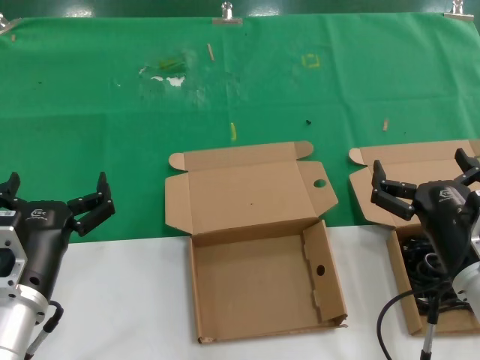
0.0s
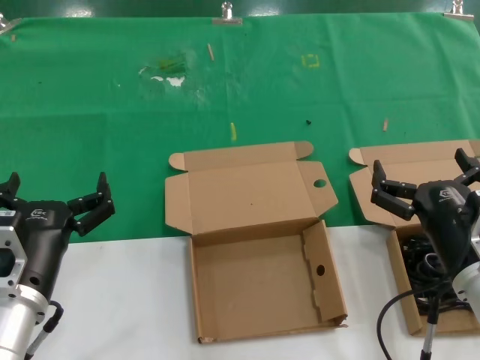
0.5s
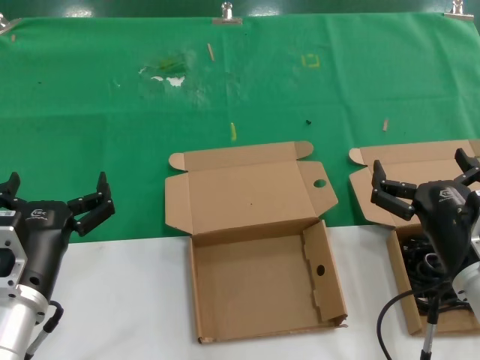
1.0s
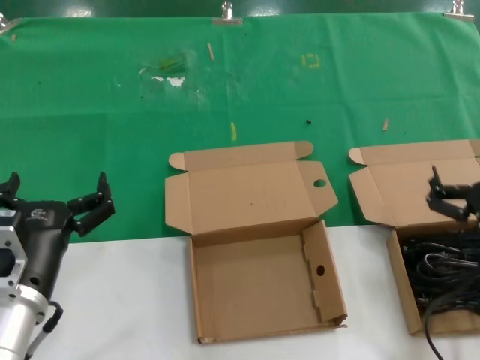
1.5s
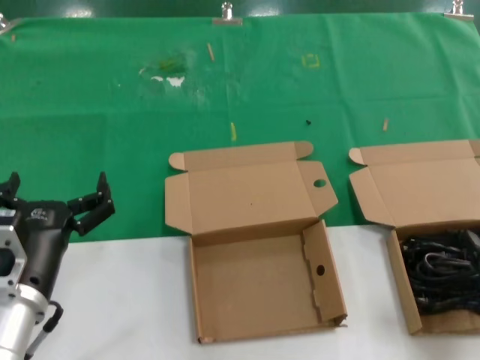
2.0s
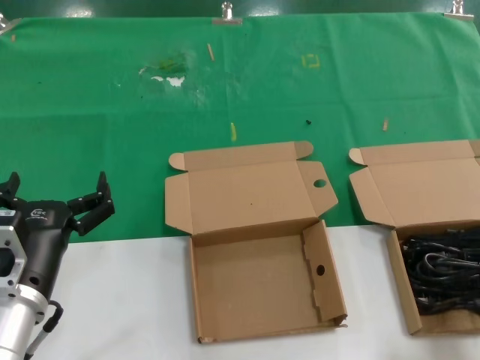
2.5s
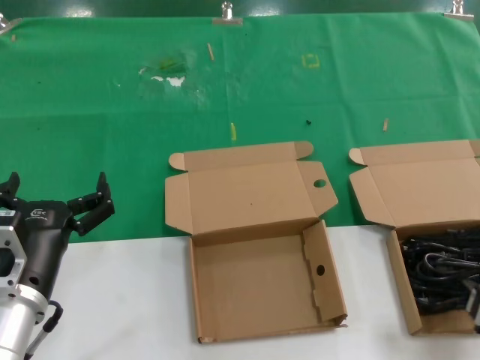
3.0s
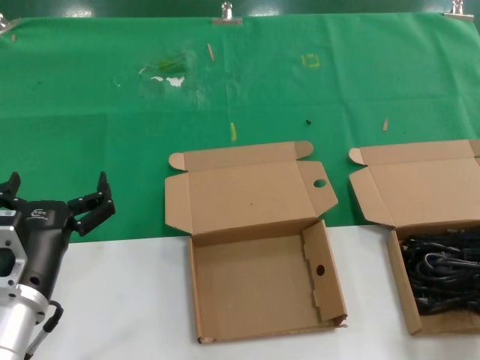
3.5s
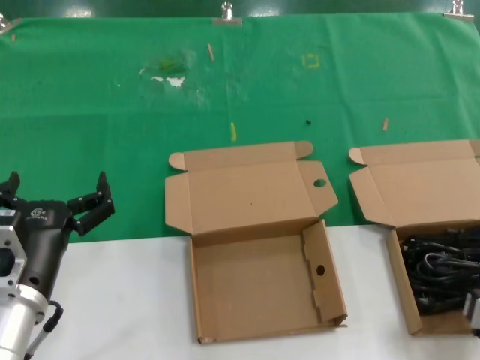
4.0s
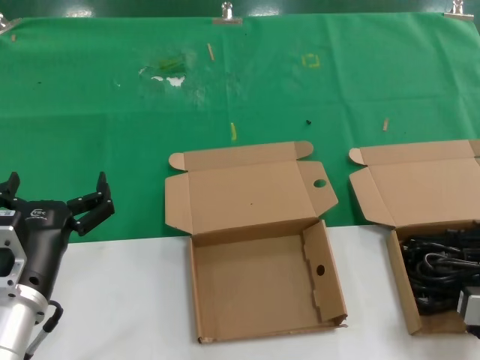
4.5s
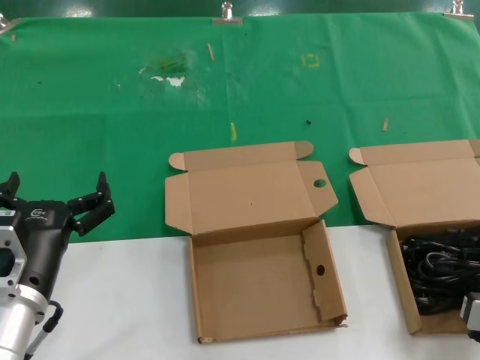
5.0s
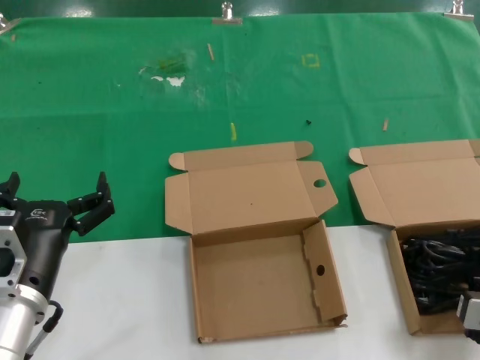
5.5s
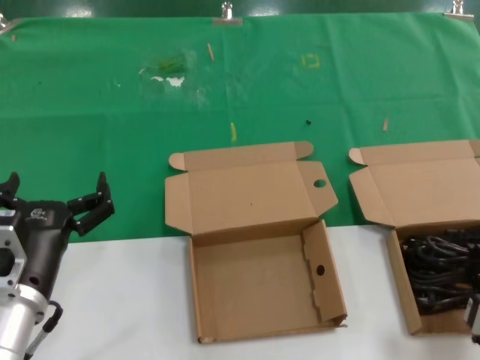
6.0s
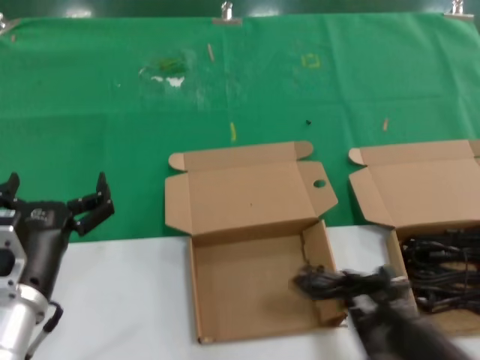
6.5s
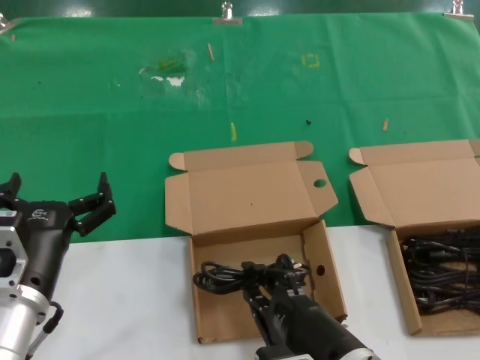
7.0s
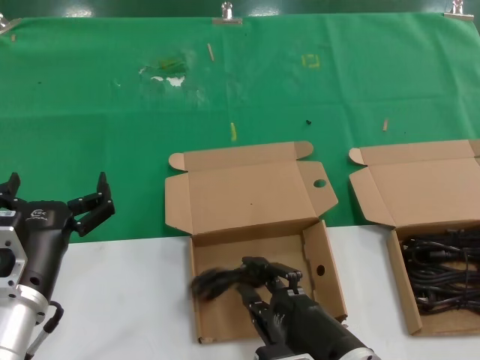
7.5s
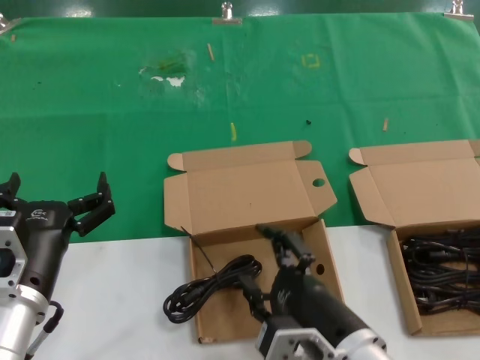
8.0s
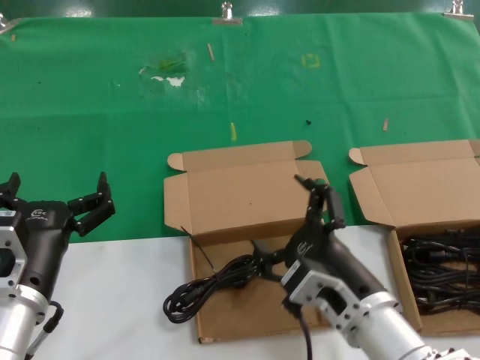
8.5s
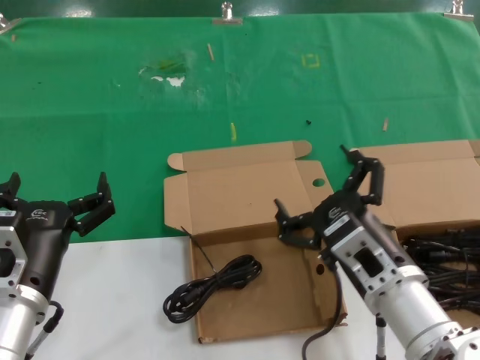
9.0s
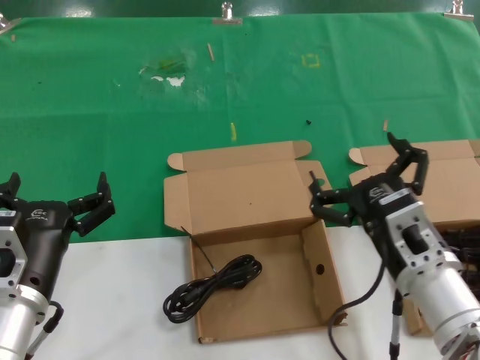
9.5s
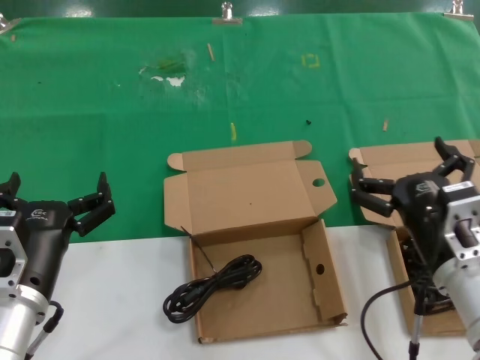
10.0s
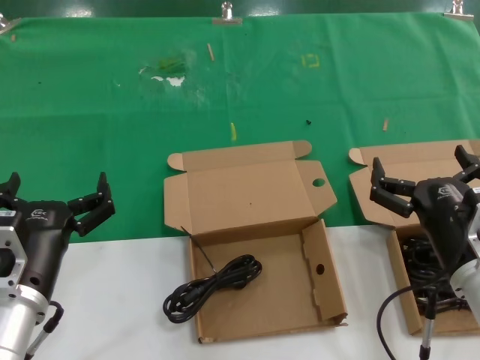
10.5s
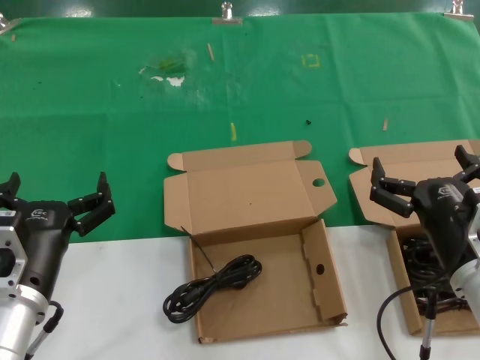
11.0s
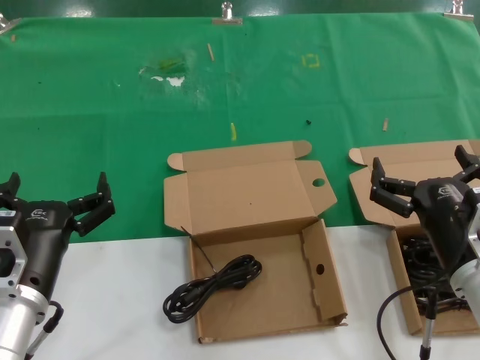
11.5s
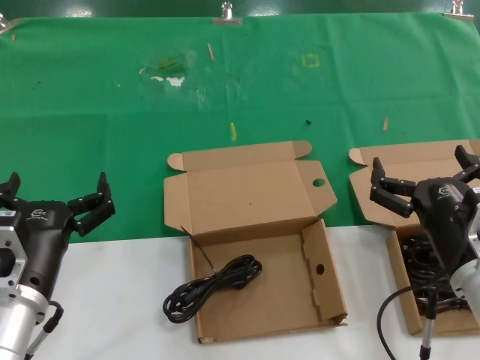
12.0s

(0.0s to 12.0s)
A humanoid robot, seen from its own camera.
Task of the whole recording: take the parts from the box containing them and put them into an empty box.
Step, 0.0s - 6.0s: Grasp the data cable.
Step, 6.5s - 8.5s: Place the data cable in the another box.
0.0s - 2.0s: The right hand is displaced to the right and backward by roughly 10 cm.
6.0s - 8.0s: The right hand heads to the left, covering roughly 20 cm.
8.0s - 10.0s: The right hand is displaced to the right and forward by roughly 15 cm.
10.0s - 12.0s: There are only small adjustments of the hands.

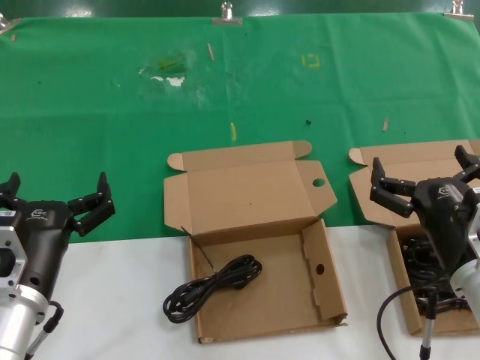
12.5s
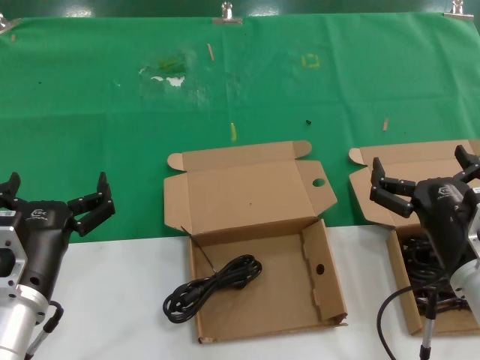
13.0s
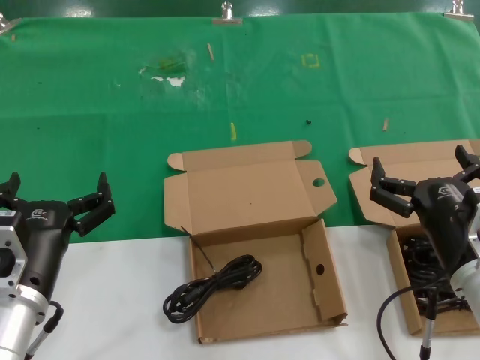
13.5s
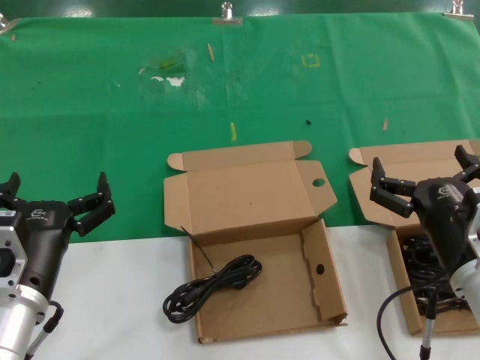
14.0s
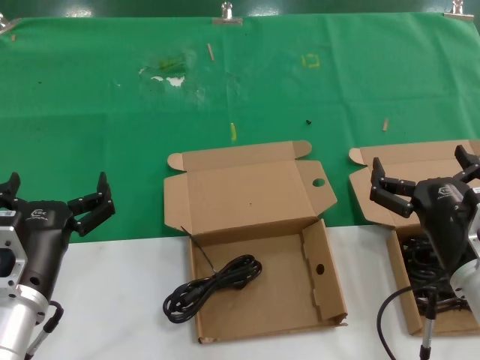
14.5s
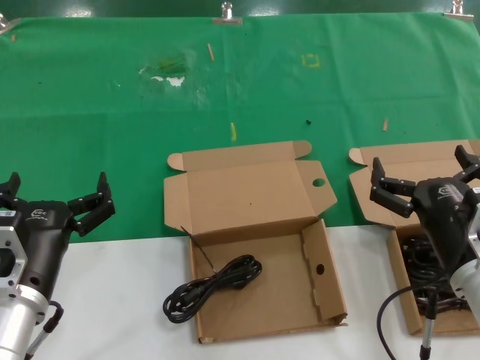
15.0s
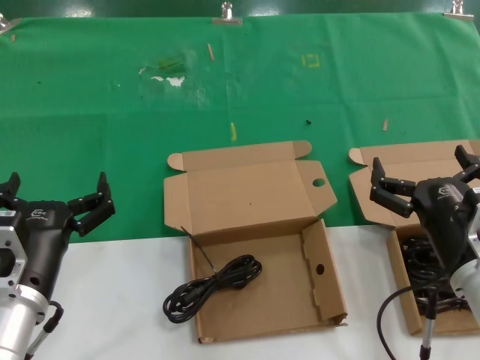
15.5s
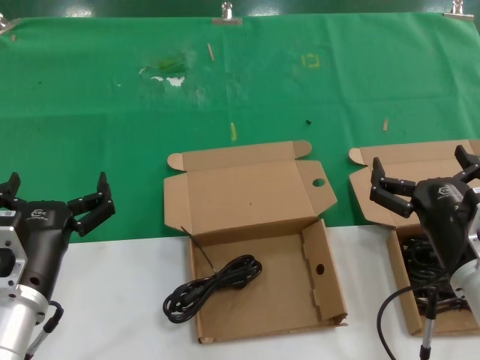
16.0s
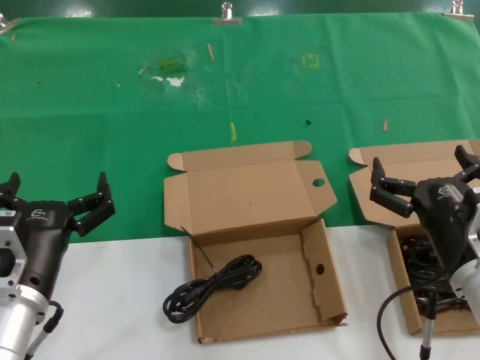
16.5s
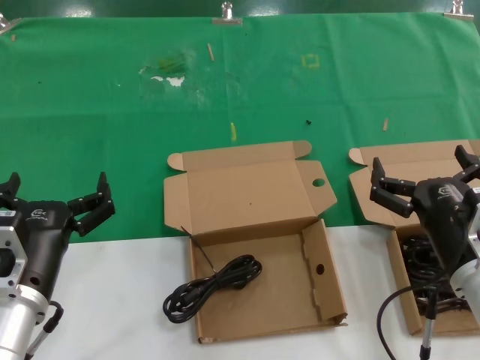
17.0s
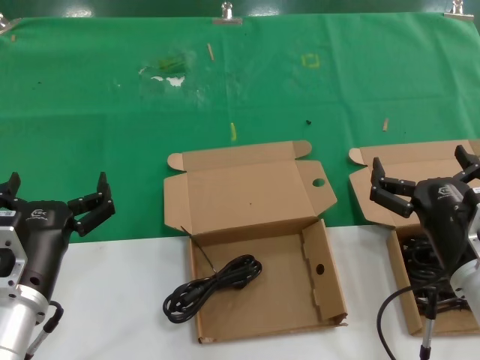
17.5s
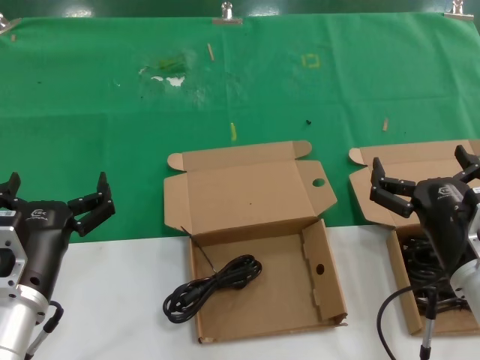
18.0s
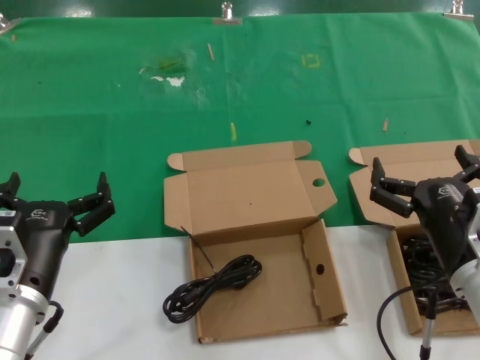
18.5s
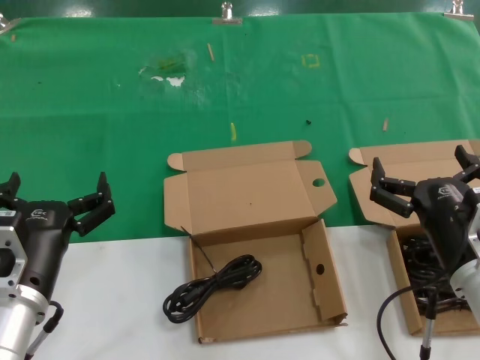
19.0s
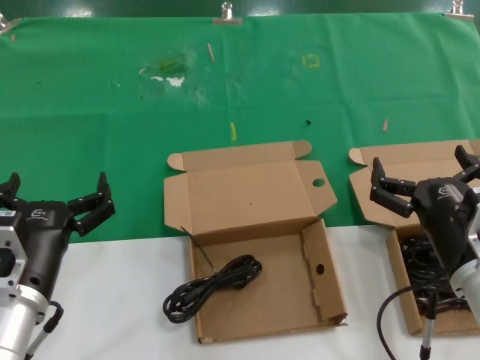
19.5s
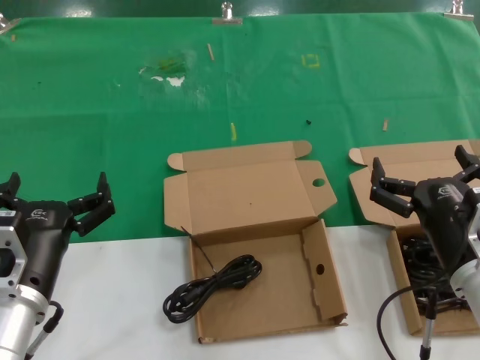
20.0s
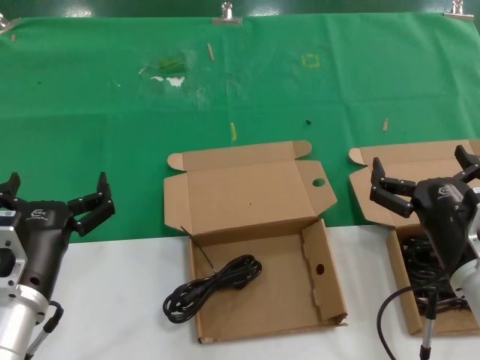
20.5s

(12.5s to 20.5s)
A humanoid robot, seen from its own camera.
Task of the whole recording: take the parts from the box containing them and put them into an empty box.
12.5s - 20.5s: Both hands stay put.

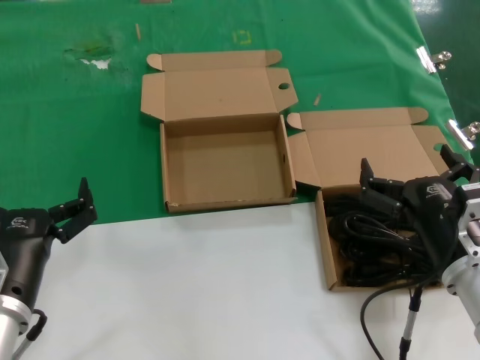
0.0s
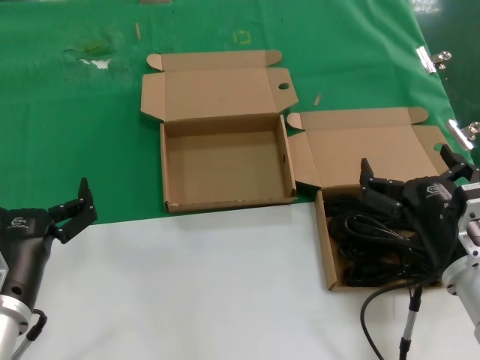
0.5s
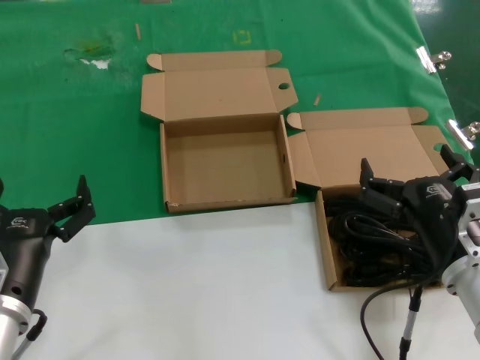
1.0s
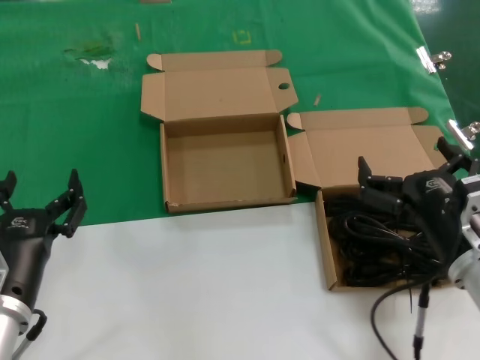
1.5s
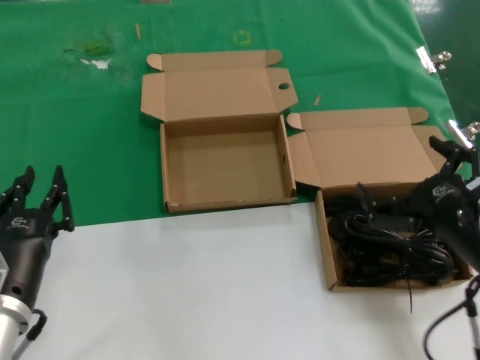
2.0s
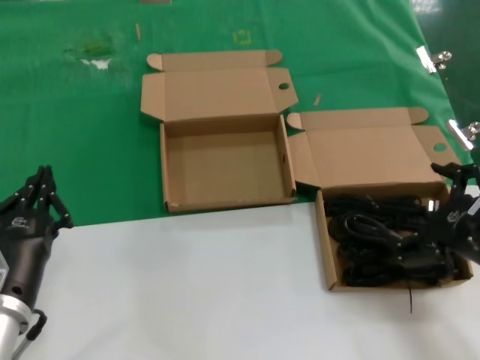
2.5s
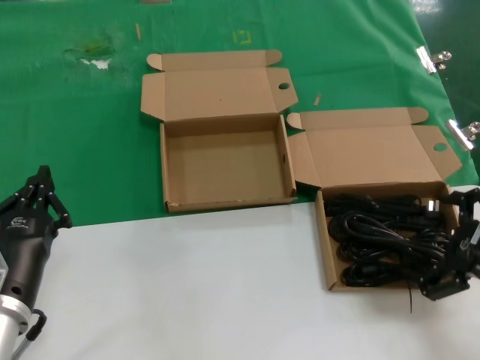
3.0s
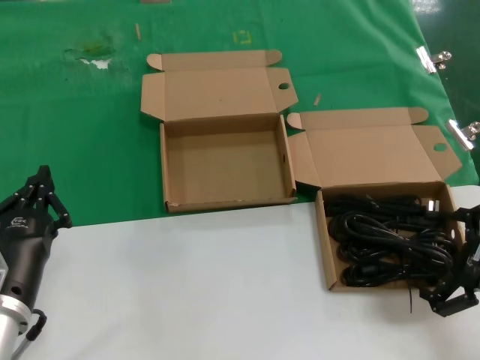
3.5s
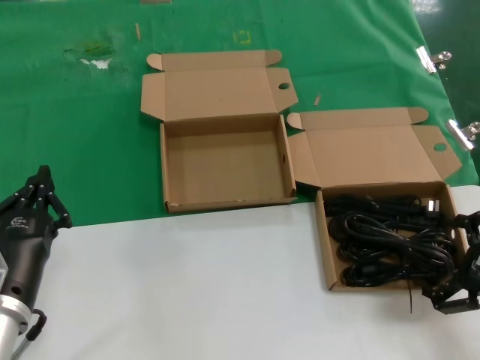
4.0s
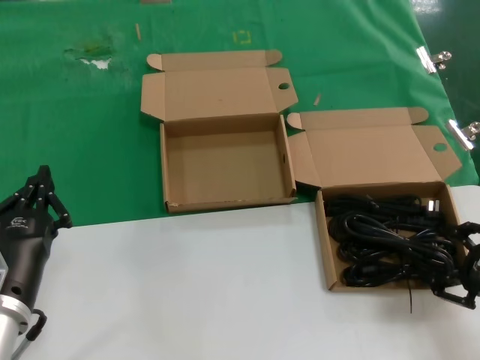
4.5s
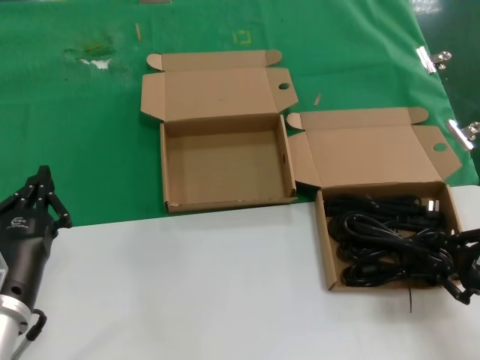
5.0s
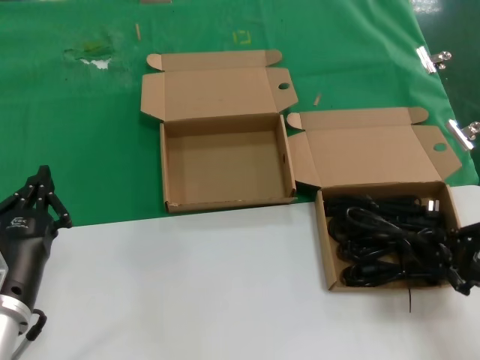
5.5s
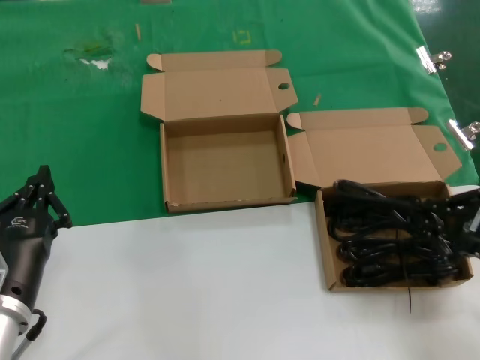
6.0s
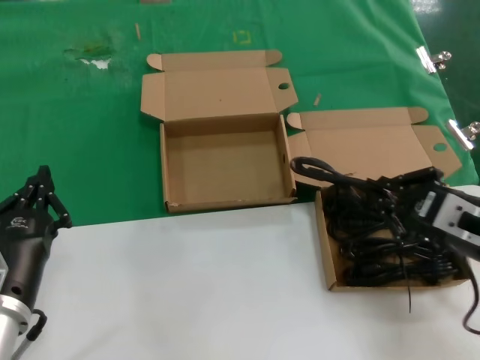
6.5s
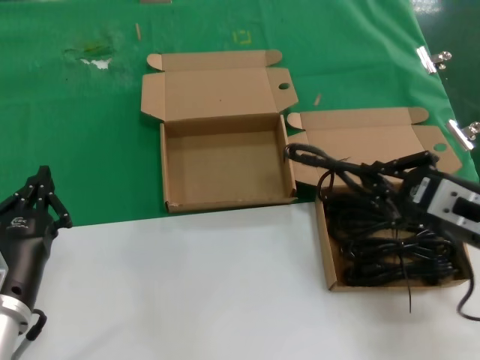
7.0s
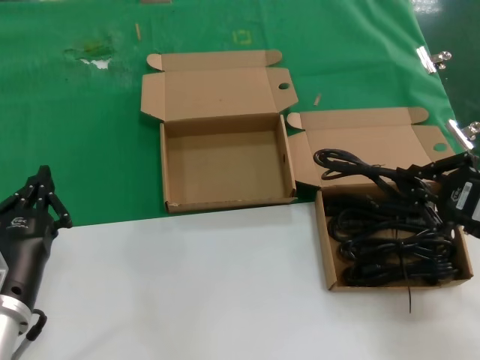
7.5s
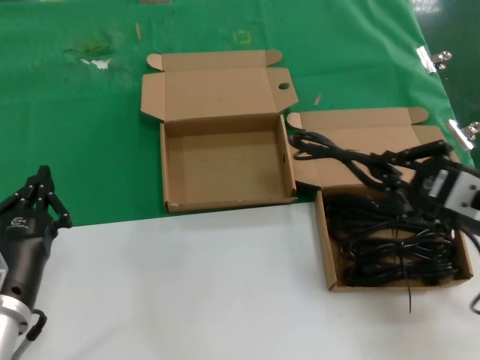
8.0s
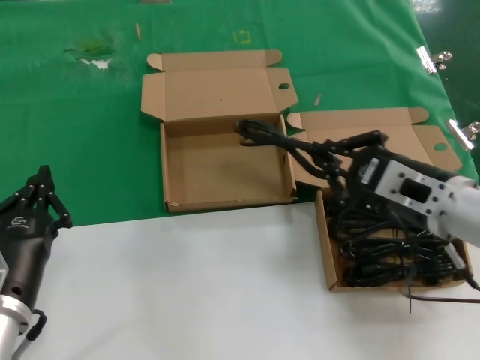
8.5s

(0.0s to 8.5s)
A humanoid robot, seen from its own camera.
Task of the whole recording: take the parts from the box containing them and put them into an empty box.
Step, 0.0s - 5.0s: Grasp the data cable.
0.0s - 2.0s: The right hand is displaced upward by some 5 cm.
2.0s - 4.0s: The right hand moves to the right, some 10 cm.
4.0s - 6.5s: The right hand moves to the left, roughly 5 cm.
6.5s - 8.5s: The right hand goes approximately 5 cm to the left.
